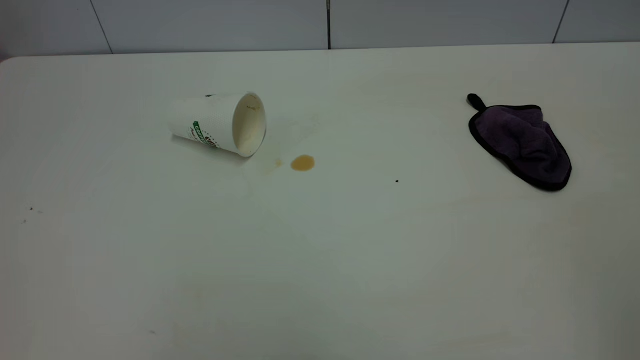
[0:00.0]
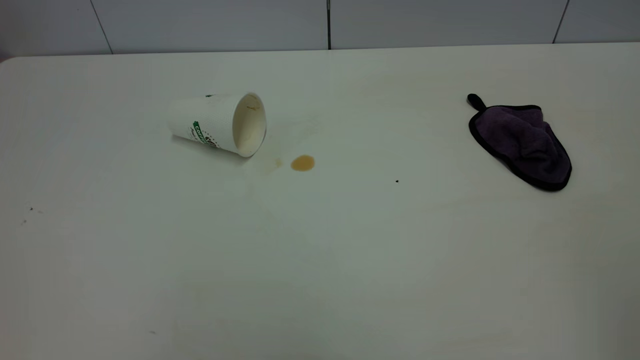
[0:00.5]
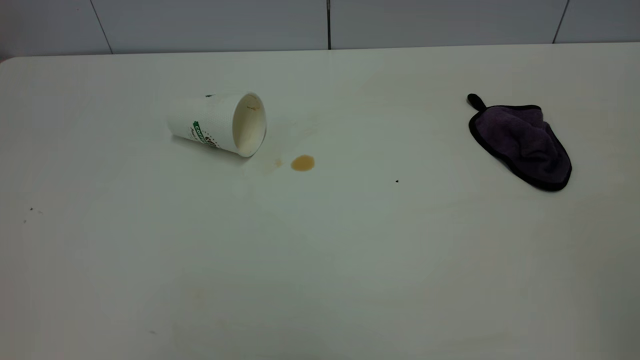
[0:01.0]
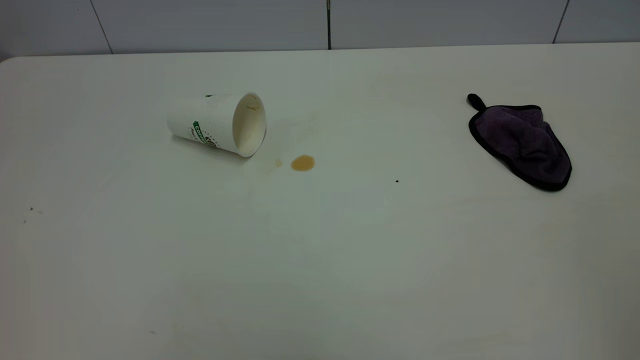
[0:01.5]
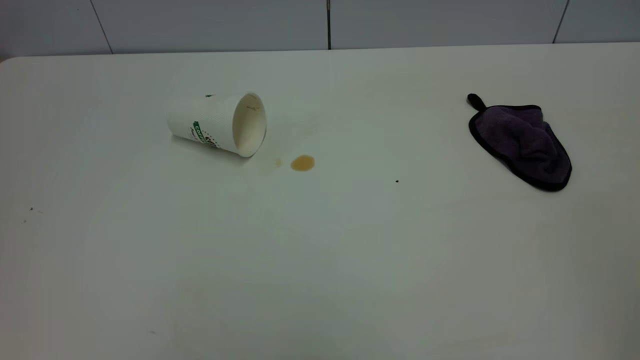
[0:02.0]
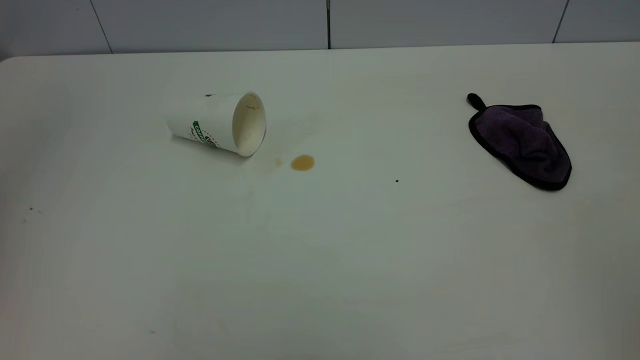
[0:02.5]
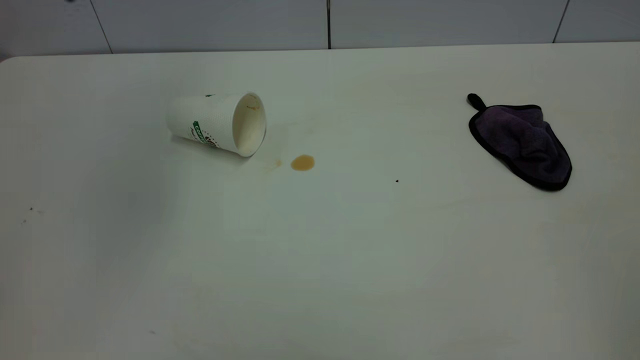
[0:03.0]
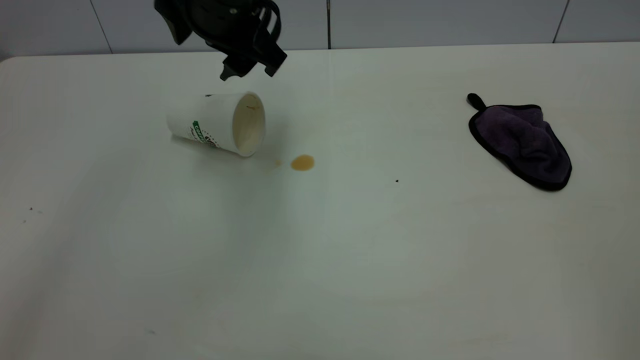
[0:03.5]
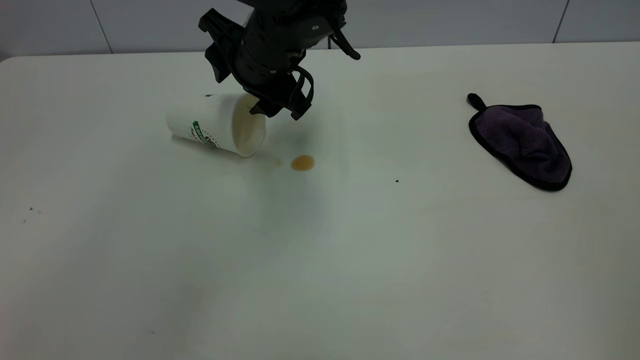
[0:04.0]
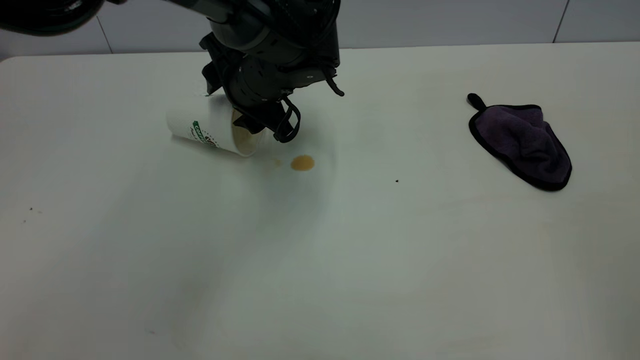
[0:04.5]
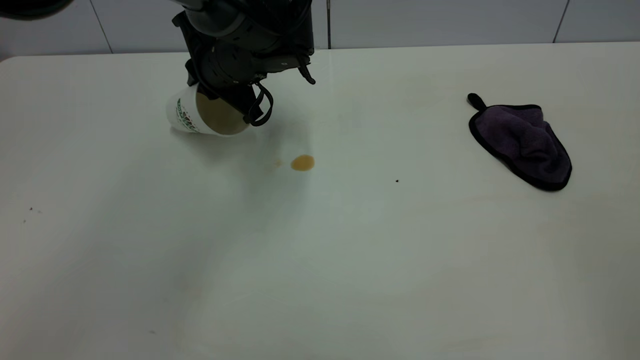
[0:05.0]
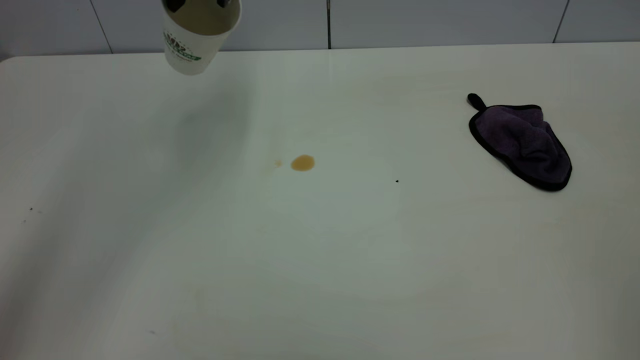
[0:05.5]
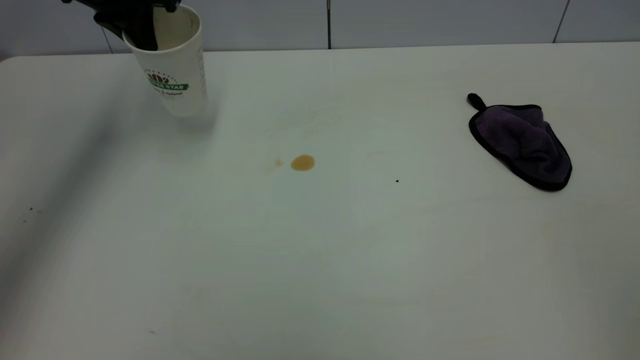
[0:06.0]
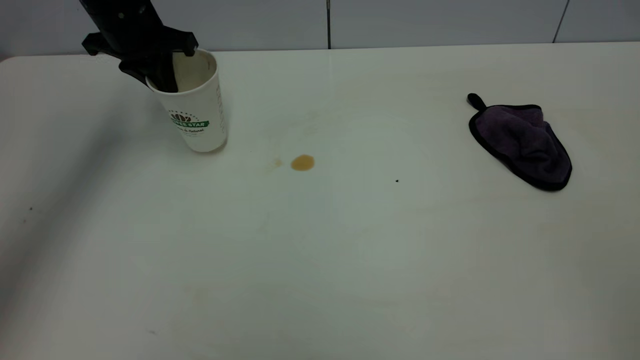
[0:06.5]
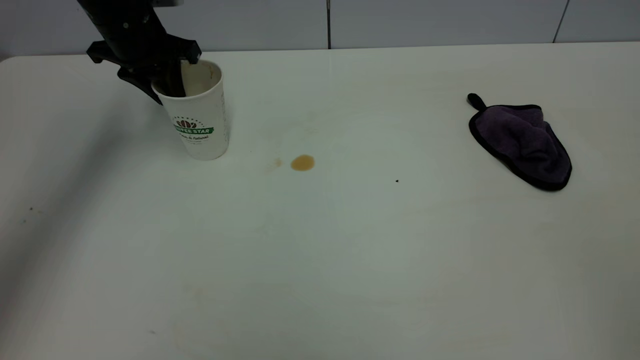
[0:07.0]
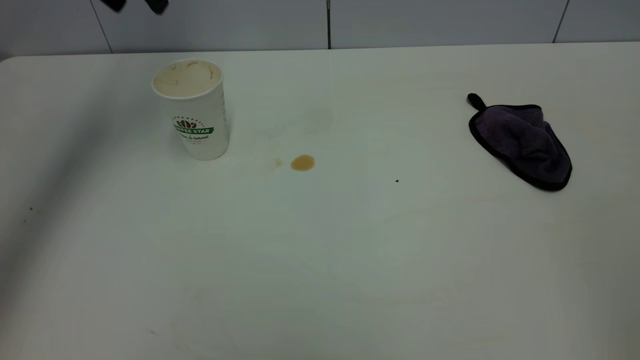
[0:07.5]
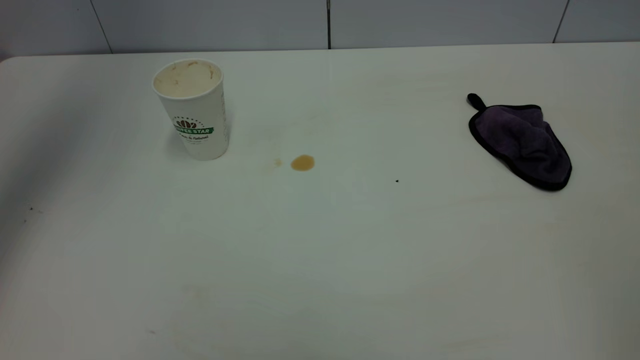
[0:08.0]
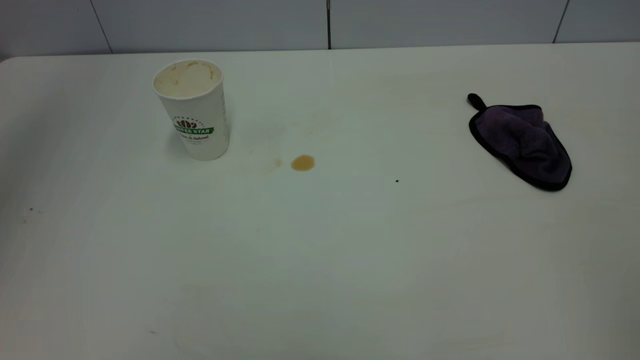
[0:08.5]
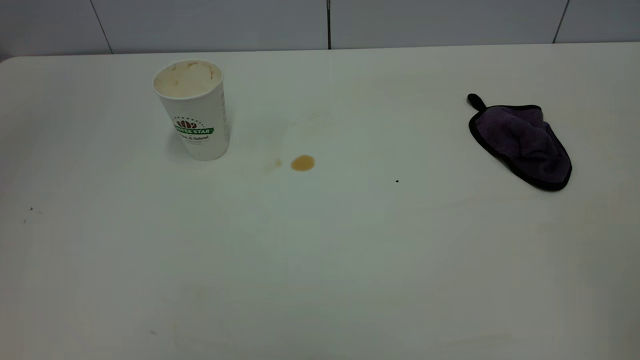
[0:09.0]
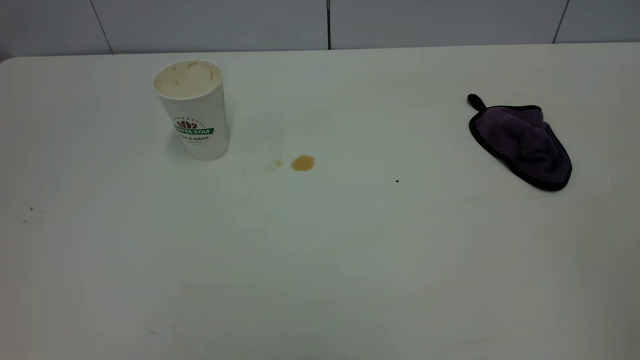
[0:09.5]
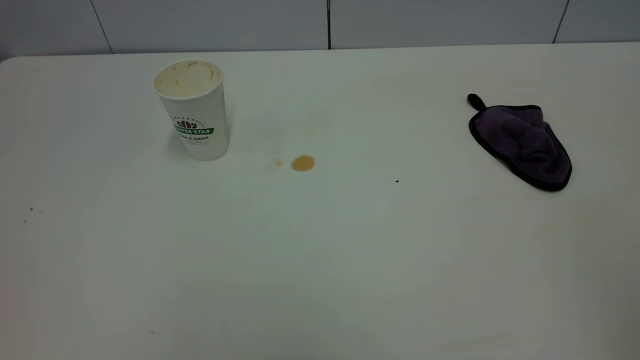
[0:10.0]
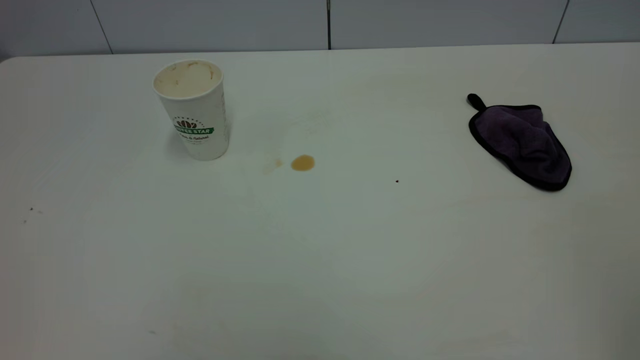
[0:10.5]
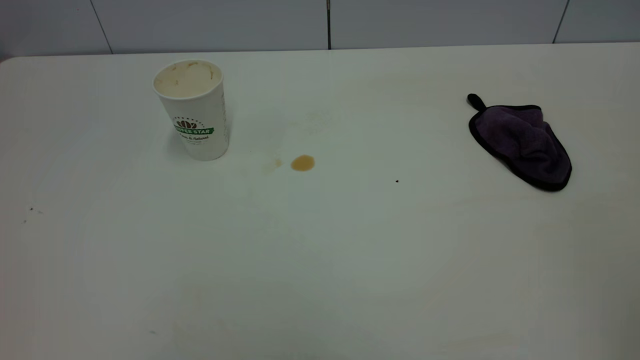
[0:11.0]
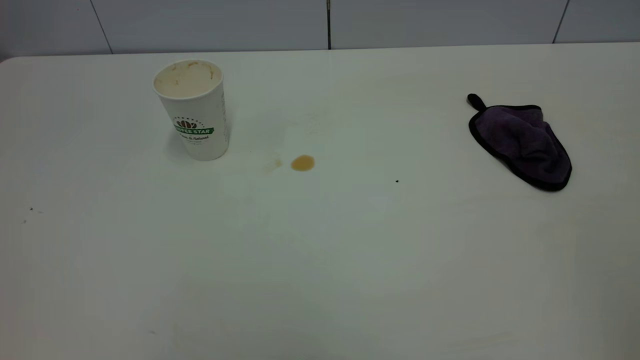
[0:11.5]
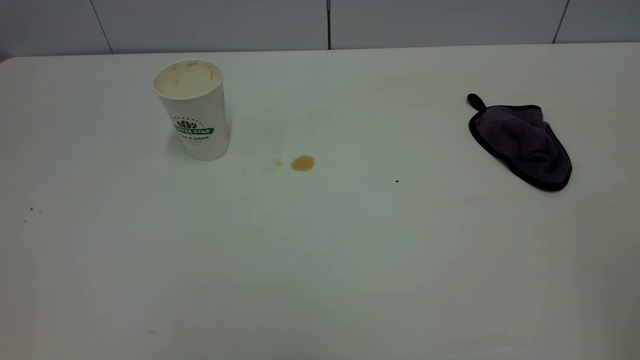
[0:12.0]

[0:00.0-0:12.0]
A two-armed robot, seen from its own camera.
Task of the whole recording: the left gripper pick up the fallen cup and place it upright, the right gripper grasp the purple rag and wipe the tea stain on the table, the right gripper put the purple rag back in its original position.
Step, 0:00.0 to 0:07.0: Stand the paper cup upright.
0:02.0 to 0:04.0: The left gripper goes some 50 cm forward, to the right and downward.
0:04.0 to 0:06.0: The left gripper goes approximately 20 cm to the left and upward, and closes up.
0:06.0 to 0:08.0: The left gripper travels upward and backward by about 25 cm, and opens.
0:08.0 to 0:10.0: The left gripper heads backward, covering some 40 cm.

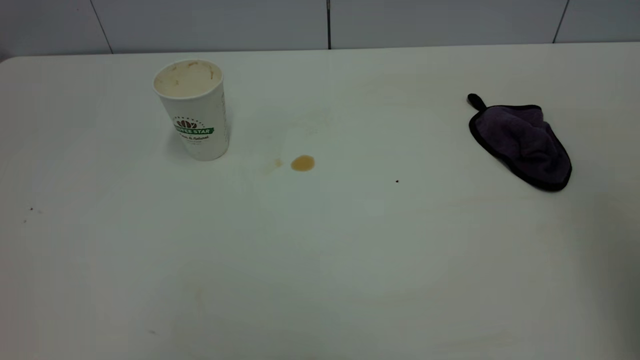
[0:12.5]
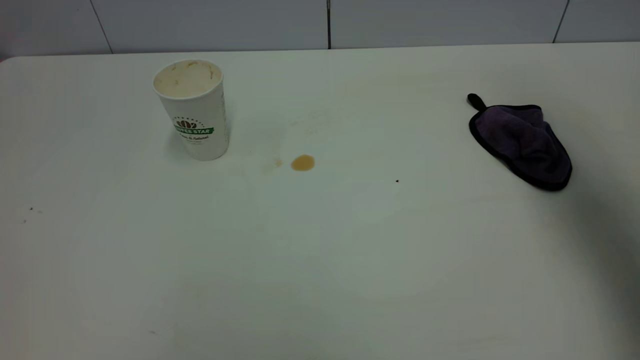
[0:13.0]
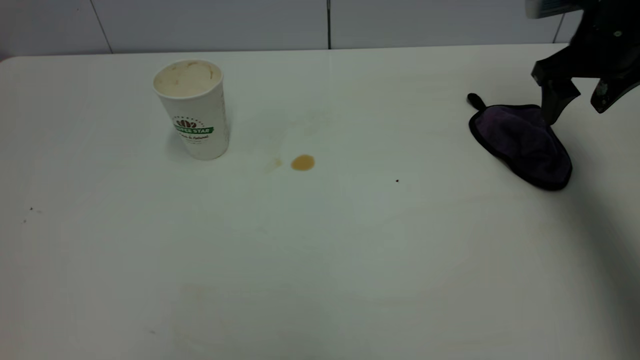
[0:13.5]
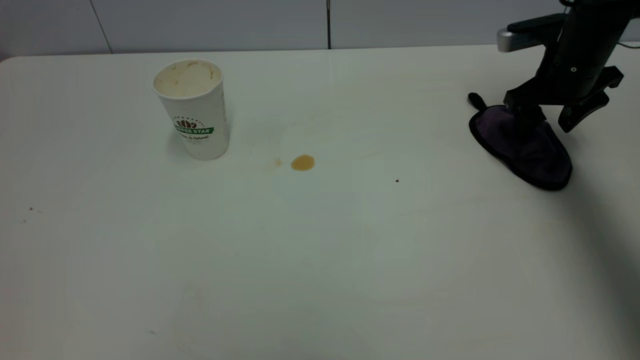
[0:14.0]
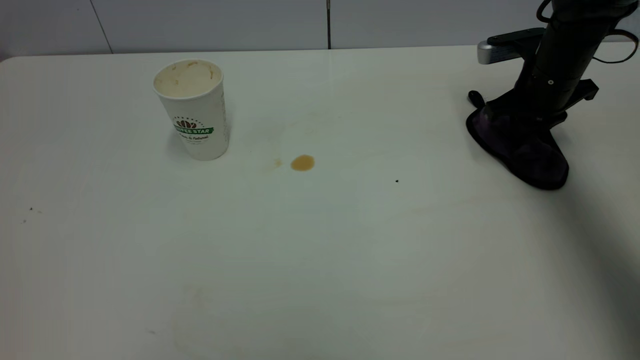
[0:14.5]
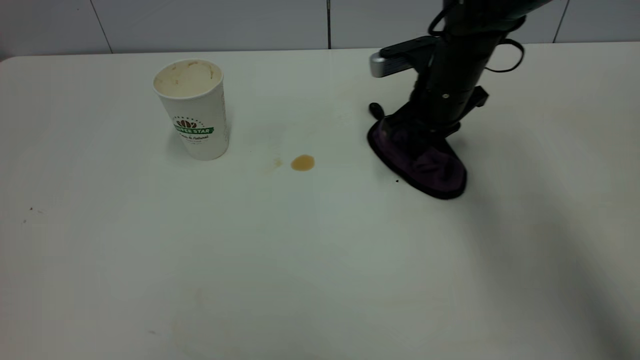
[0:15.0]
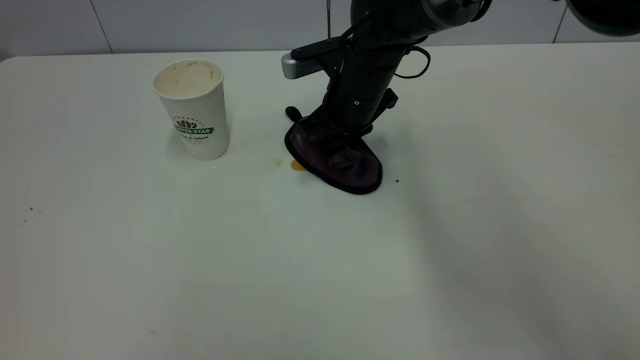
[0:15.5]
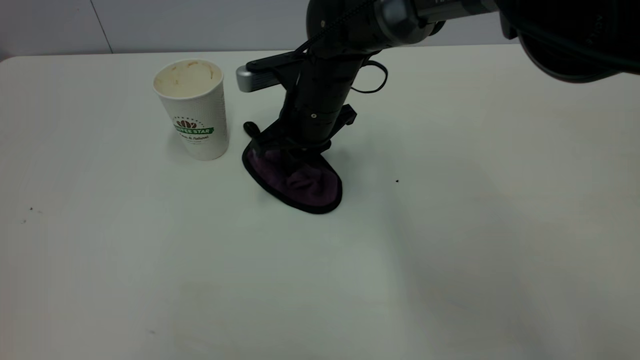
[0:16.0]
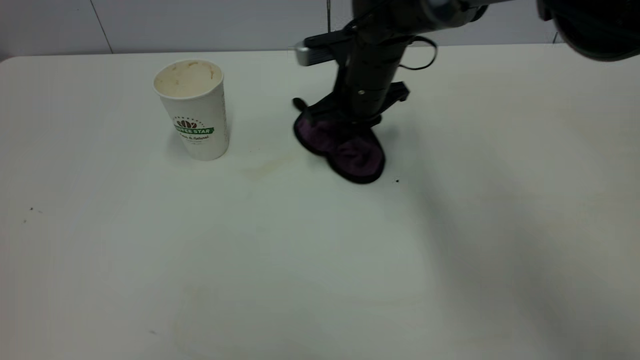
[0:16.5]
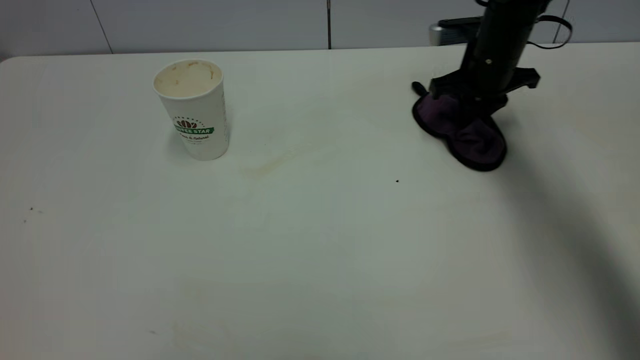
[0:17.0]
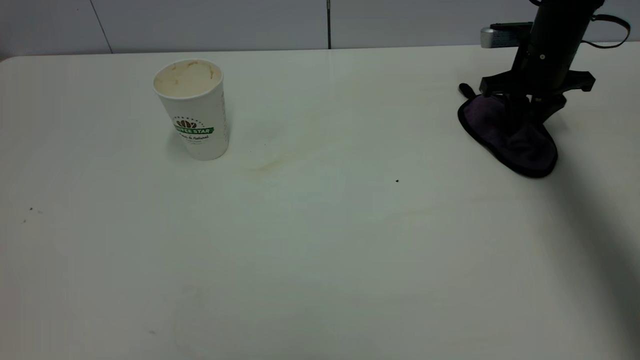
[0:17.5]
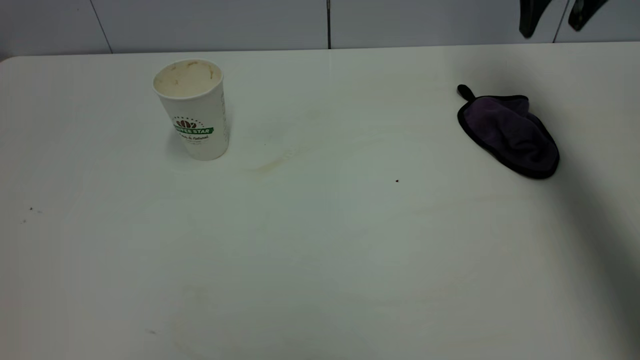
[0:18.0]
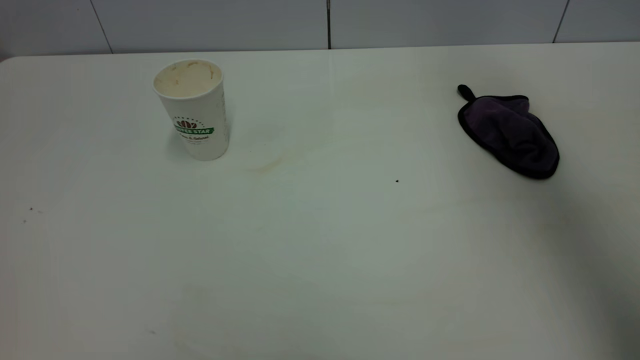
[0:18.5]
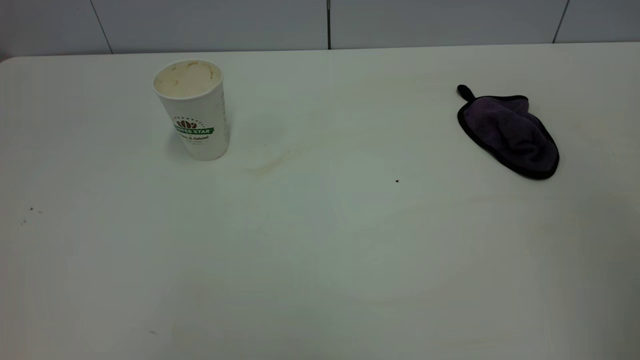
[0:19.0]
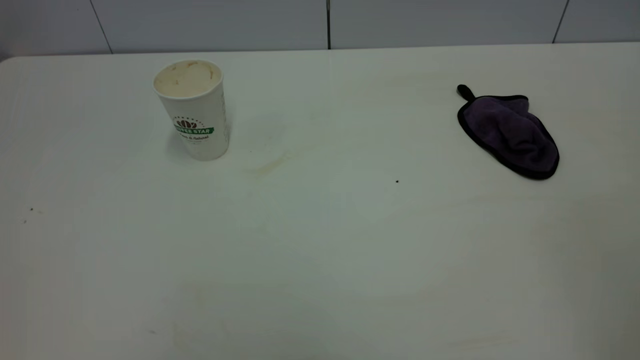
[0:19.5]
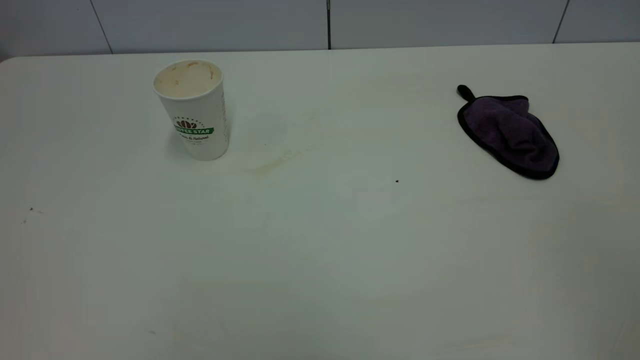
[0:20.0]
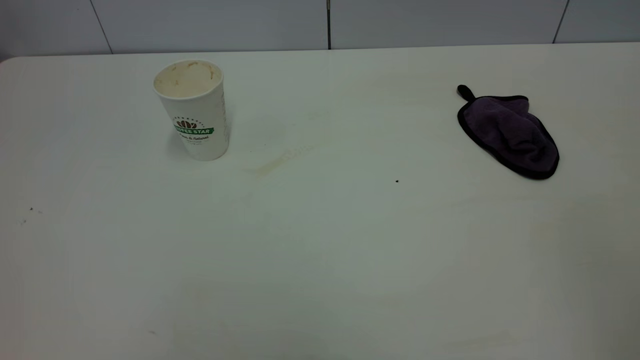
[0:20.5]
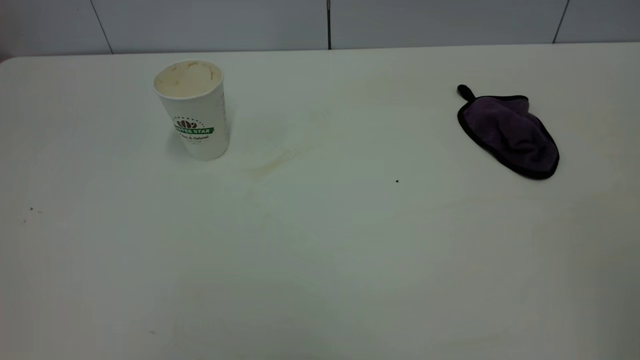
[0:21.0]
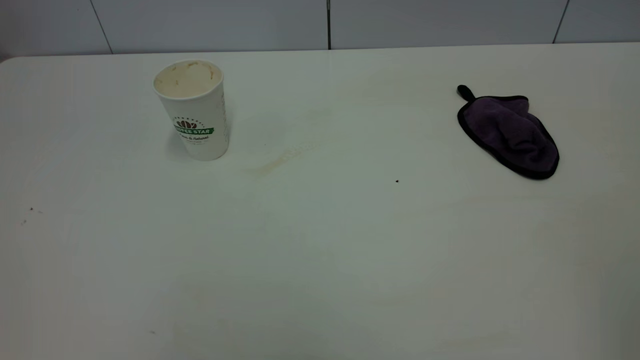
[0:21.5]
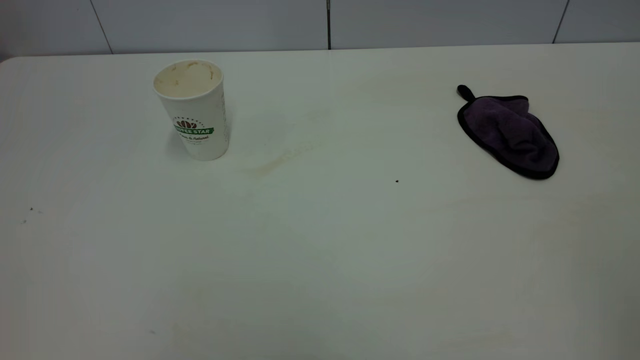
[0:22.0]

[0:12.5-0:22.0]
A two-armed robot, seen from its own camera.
Task of the whole recording: the left gripper pick up the fallen cup and place it upright, the right gripper grasp the purple rag and wipe the tea stain on the table, the right gripper put the purple rag back in its original position.
Step, 0:12.5 to 0:17.5: Wipe the stains off the table with a rag.
0:12.5 to 0:14.5: The right gripper moves forward and downward, some 50 cm, and closes.
0:14.5 to 0:16.5: The right gripper shifts some 20 cm to the left.
0:16.5 to 0:18.0: The right gripper goes roughly 25 cm to the right and upward, and opens up.
0:18.0 to 0:20.0: The right gripper travels backward by some 50 cm.
